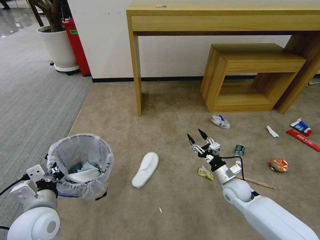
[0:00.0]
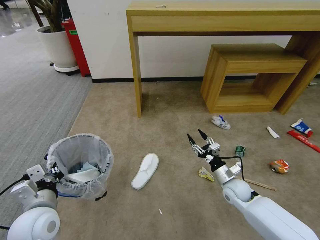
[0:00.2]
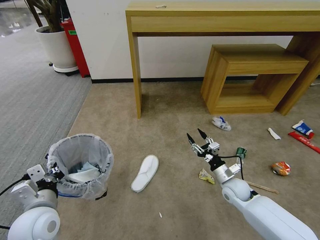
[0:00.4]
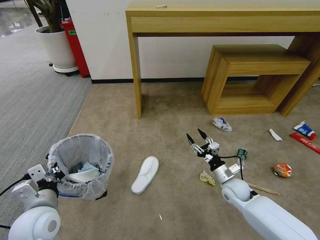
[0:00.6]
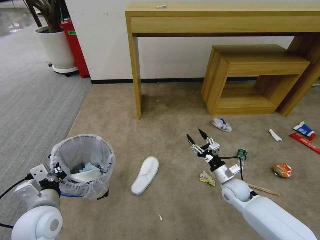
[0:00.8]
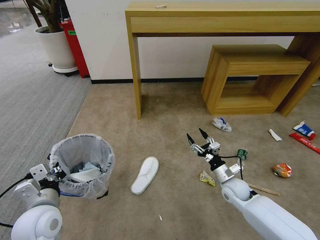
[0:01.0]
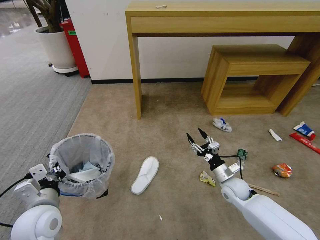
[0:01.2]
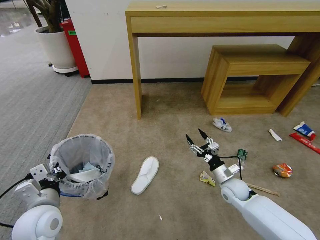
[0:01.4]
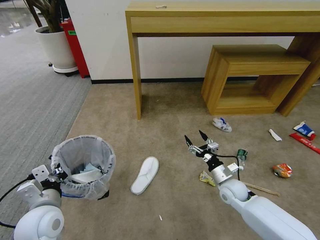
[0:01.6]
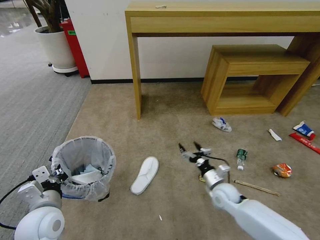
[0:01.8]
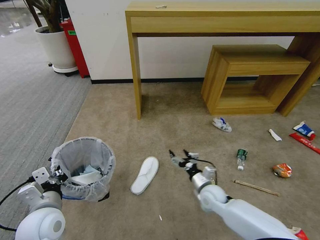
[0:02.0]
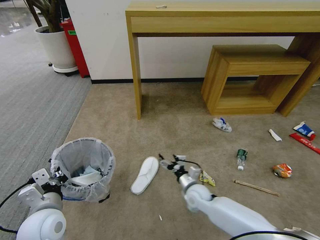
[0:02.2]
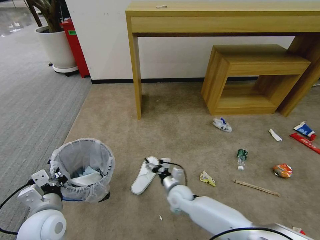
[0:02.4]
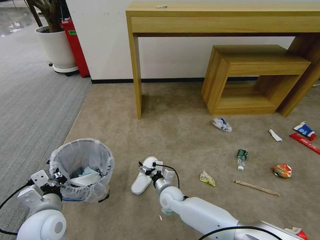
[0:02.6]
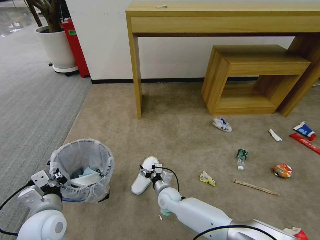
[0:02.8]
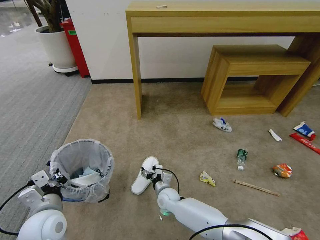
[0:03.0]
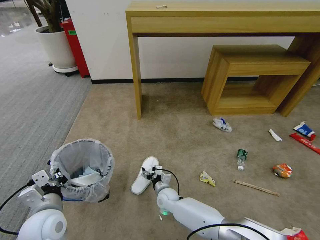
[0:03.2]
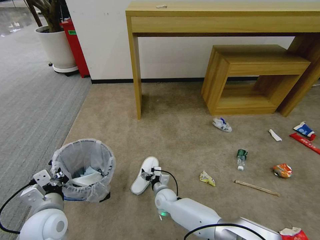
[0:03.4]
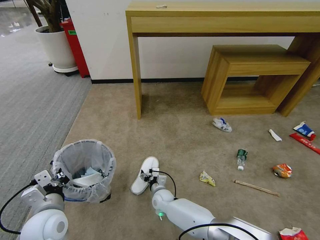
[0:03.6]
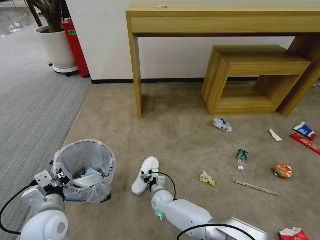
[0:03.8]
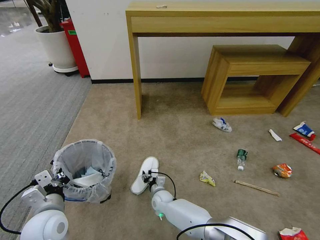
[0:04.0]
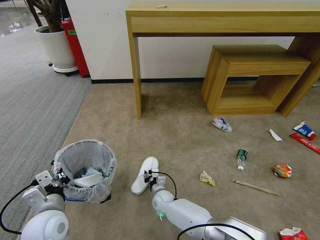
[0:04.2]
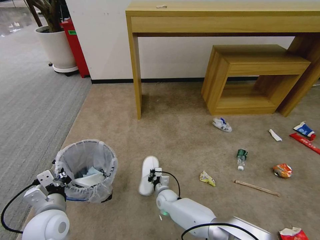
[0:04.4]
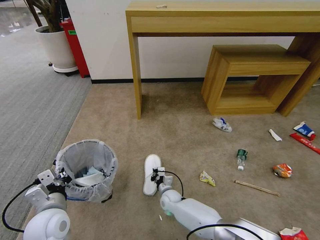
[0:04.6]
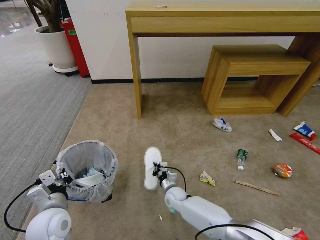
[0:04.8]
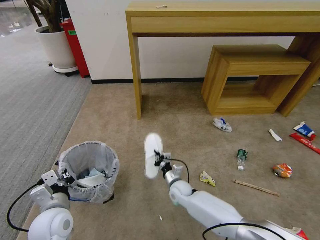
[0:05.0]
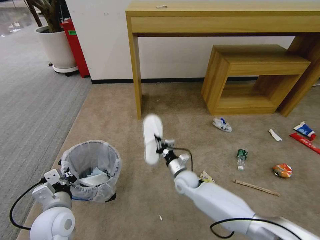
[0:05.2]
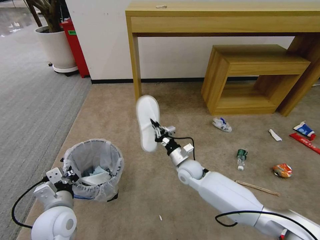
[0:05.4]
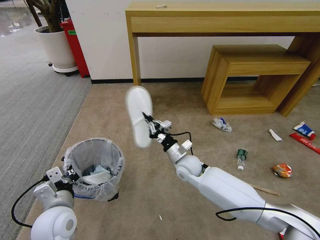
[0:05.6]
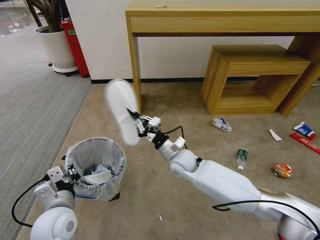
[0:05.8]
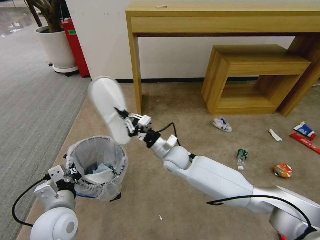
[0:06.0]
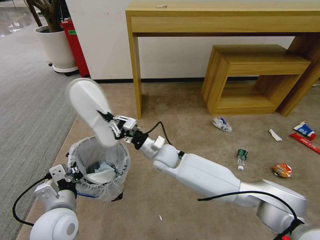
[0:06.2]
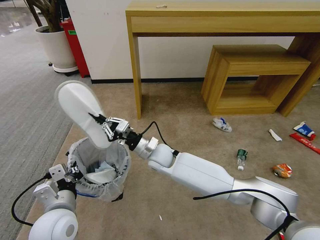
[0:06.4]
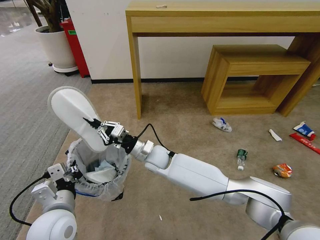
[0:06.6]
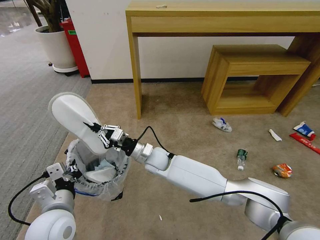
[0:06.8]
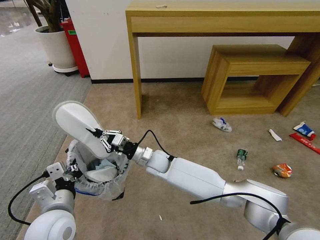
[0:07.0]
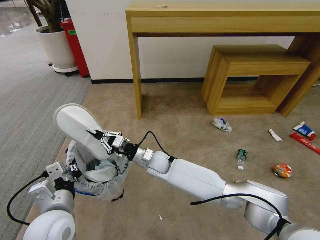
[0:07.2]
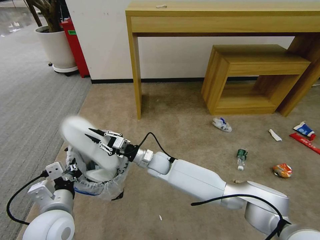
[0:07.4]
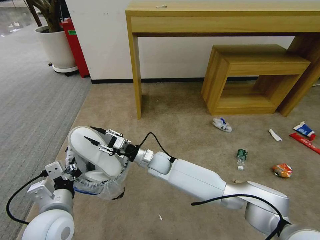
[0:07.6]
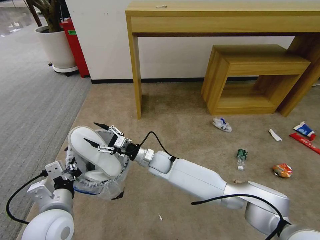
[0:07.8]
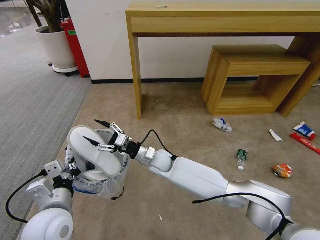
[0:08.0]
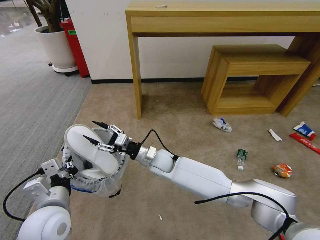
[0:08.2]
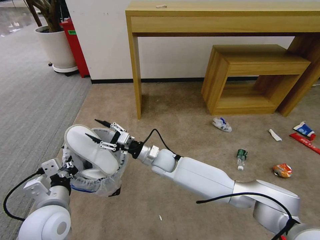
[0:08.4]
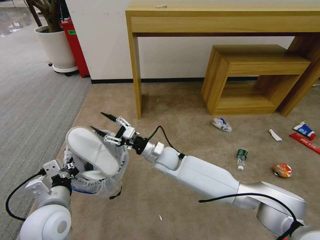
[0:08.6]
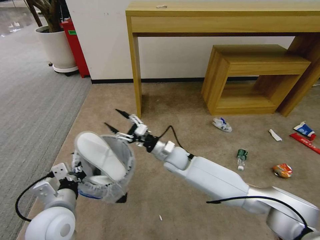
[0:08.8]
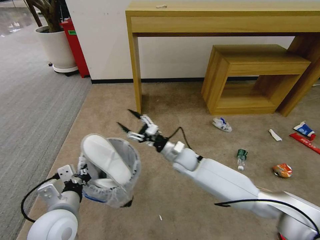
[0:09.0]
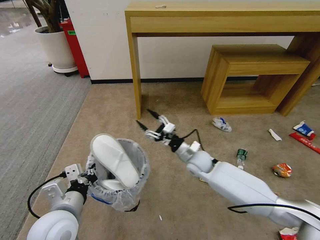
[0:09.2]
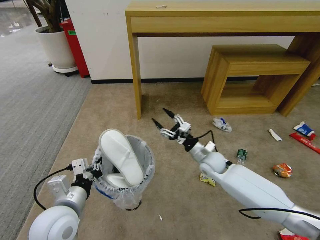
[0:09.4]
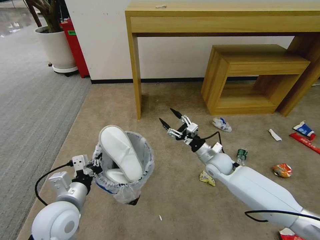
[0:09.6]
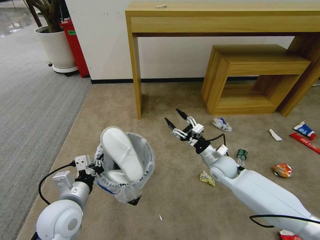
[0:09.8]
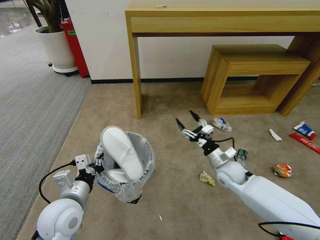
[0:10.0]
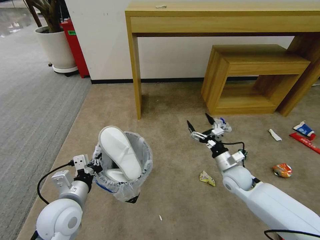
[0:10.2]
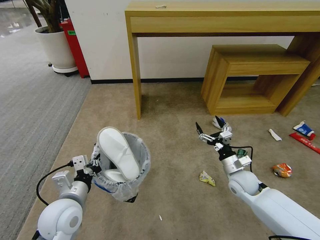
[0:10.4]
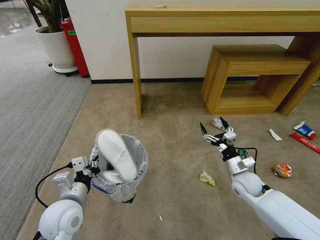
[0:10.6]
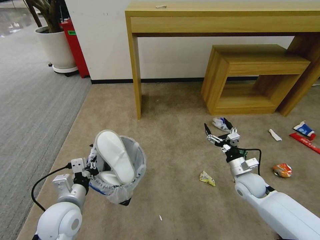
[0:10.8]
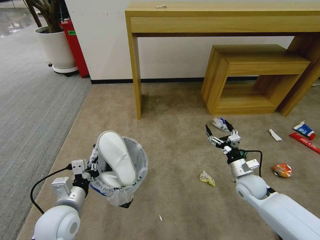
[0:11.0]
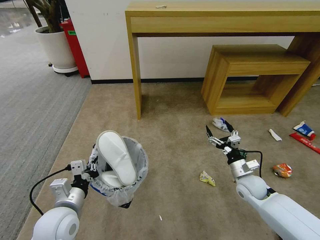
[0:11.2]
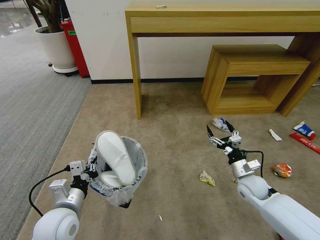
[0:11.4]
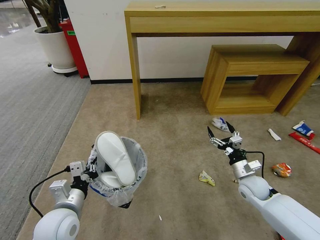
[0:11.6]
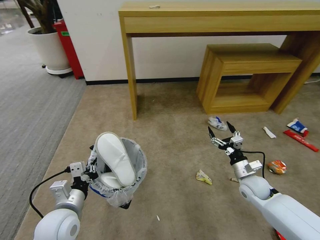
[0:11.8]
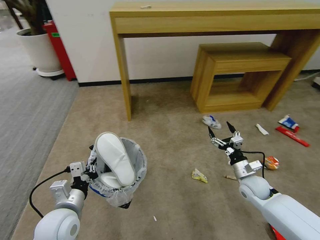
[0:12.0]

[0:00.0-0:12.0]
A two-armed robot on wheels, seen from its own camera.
Task of the whole recording: Pick up the trash bin and place the garbage on the floor into it.
0:00.0 to 0:01.6: There are only small adjustments of the grippers.
0:01.6 to 0:03.0: The right gripper heads to the left and downward, covering some 25 cm.
0:03.0 to 0:04.4: The right gripper closes.
0:04.4 to 0:06.0: The right gripper heads upward, covering roughly 25 cm.
0:06.0 to 0:07.6: The right gripper is displaced downward and to the left by some 10 cm, and opens up.
0:07.6 to 0:09.0: The right gripper heads to the right, covering some 10 cm.
0:09.0 to 0:10.4: The right gripper travels to the right by roughly 20 cm.
0:10.4 to 0:12.0: The right gripper changes place by roughly 5 cm.

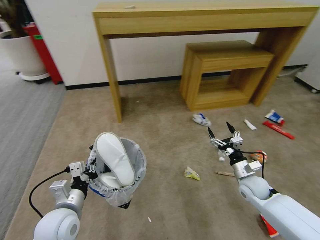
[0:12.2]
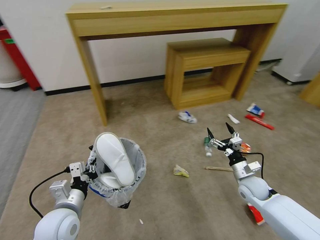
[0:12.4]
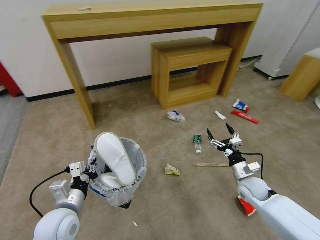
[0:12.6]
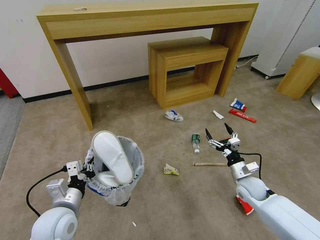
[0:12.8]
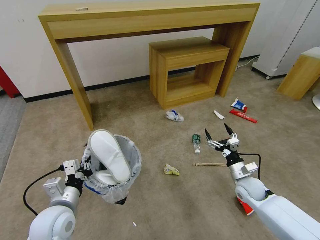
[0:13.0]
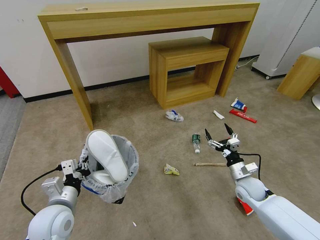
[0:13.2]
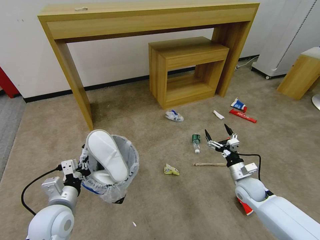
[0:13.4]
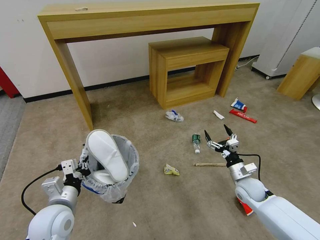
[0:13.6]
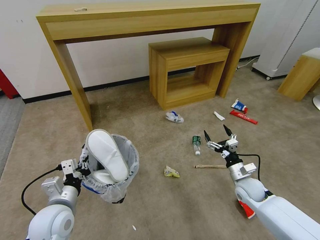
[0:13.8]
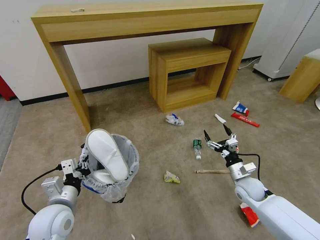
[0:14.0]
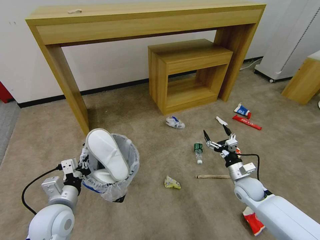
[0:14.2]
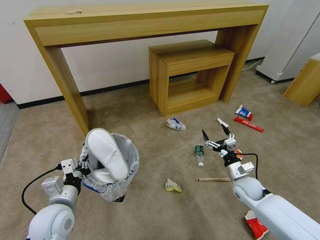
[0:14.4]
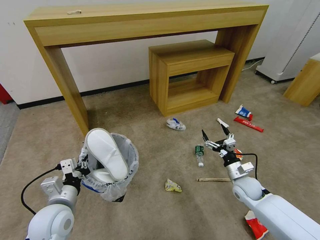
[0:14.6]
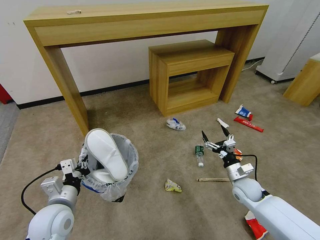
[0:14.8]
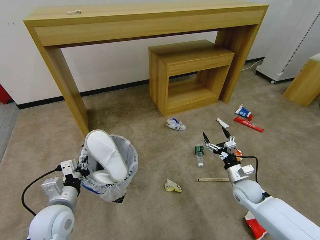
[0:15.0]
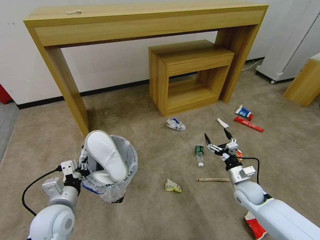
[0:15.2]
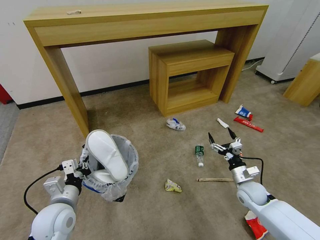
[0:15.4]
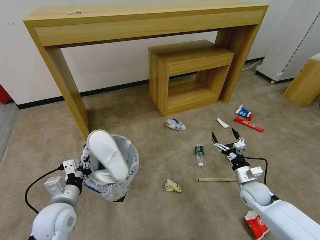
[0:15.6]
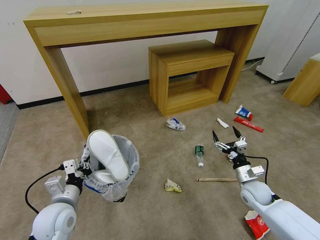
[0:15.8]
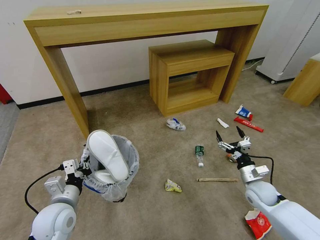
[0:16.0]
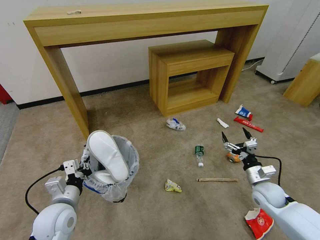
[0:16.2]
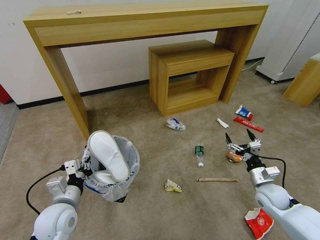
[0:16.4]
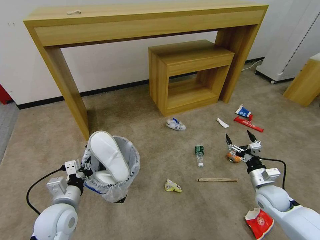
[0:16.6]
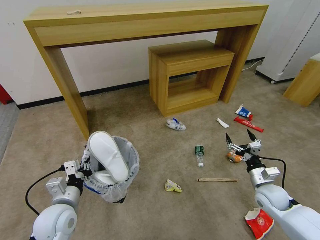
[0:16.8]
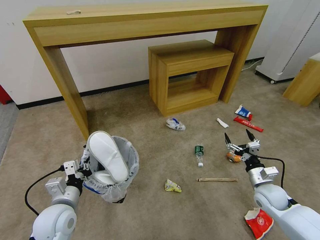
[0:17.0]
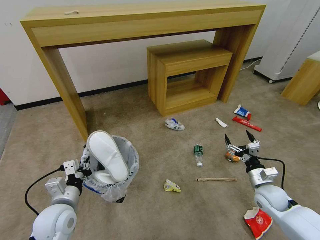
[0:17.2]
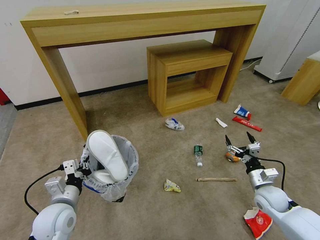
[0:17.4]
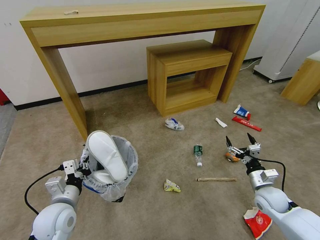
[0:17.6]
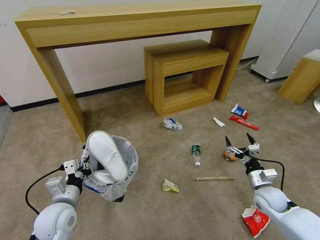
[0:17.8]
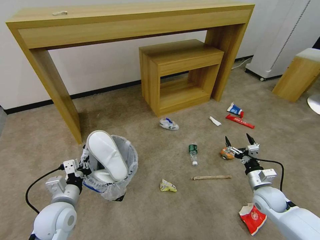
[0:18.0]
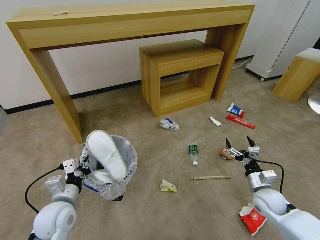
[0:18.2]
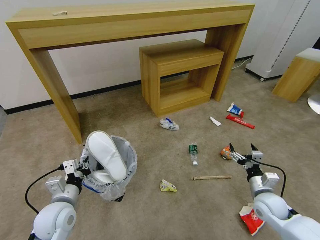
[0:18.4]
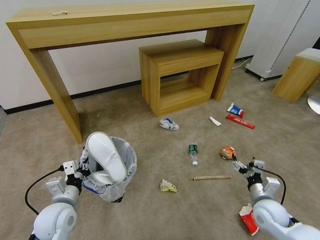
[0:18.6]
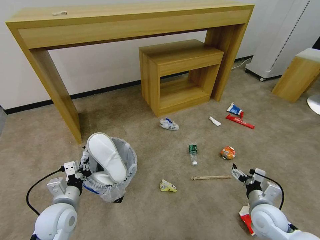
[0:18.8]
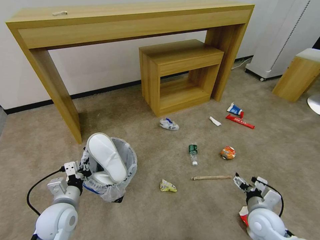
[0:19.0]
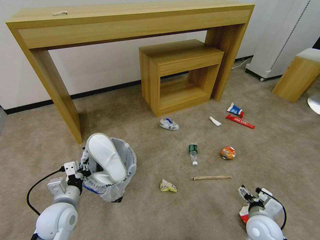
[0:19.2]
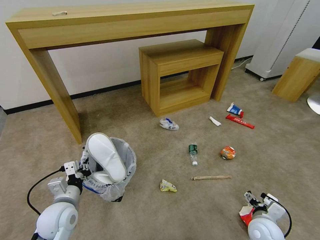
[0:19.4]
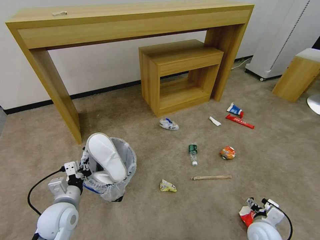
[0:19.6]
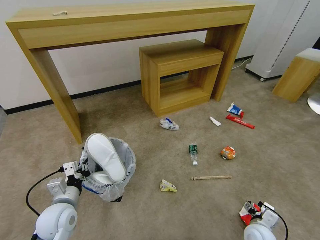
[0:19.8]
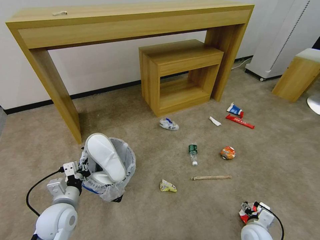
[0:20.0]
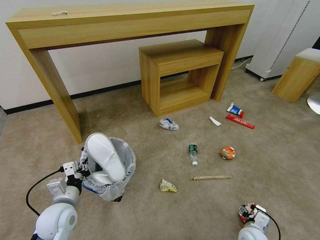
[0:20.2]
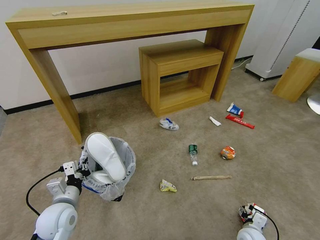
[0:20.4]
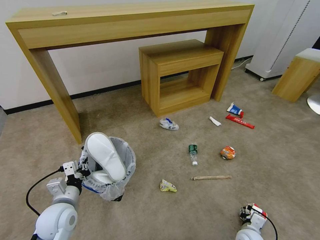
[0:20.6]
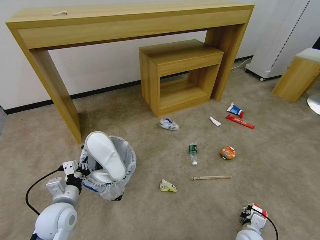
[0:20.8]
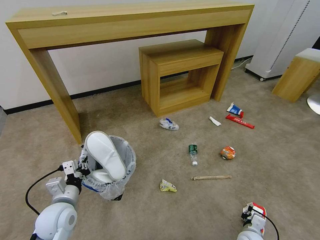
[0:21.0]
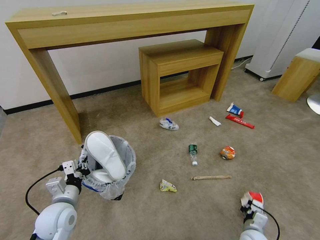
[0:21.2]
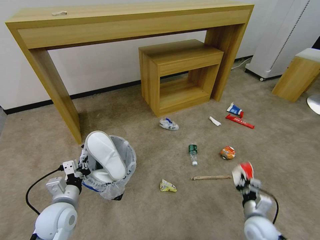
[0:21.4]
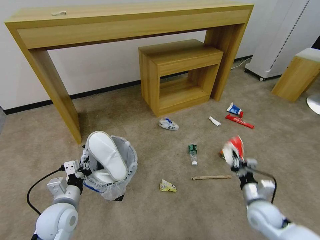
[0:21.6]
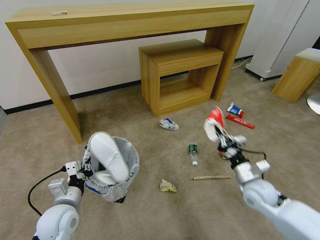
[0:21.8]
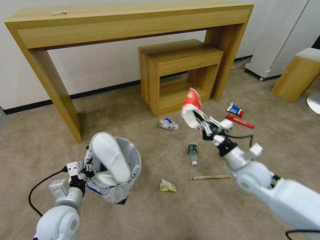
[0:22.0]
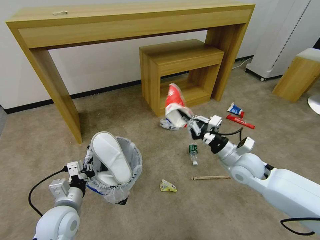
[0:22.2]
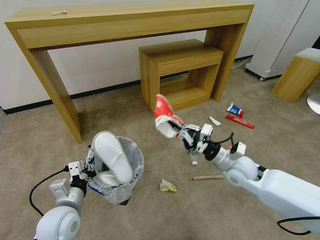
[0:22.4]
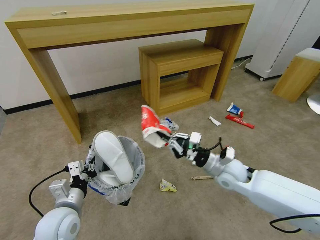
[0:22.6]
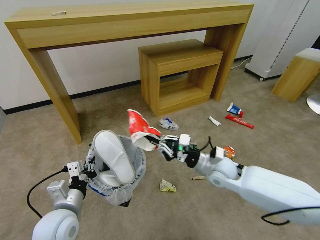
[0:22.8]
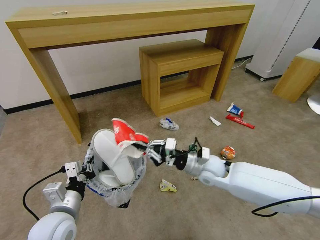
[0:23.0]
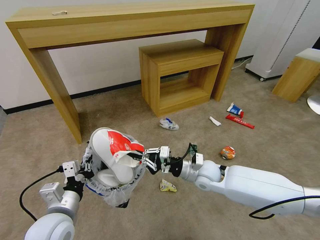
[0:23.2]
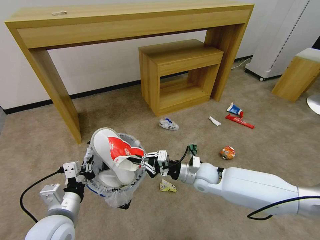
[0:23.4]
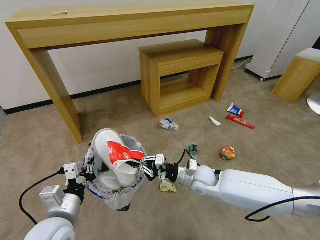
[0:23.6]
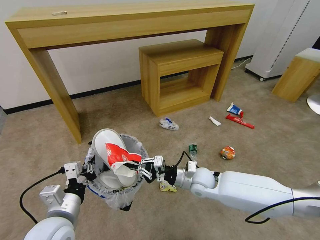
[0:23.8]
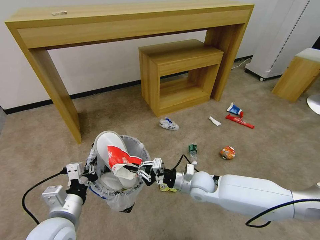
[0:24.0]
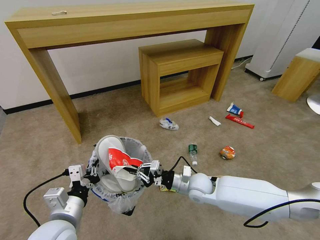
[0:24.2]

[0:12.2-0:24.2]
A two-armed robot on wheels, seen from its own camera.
Task of the whole recording: Pick up the trash bin and place the garbage on the floor into it.
0:15.2 to 0:16.6: The right gripper shifts roughly 5 cm to the right.
0:18.2 to 0:19.8: The right gripper moves backward and downward, roughly 15 cm.
0:19.8 to 0:21.2: The right gripper closes.
0:21.2 to 0:22.6: The right gripper goes about 30 cm upward, forward and to the left.
0:22.6 to 0:24.2: The left gripper shifts by about 5 cm. Meanwhile the right gripper travels to the left and downward by some 10 cm.
